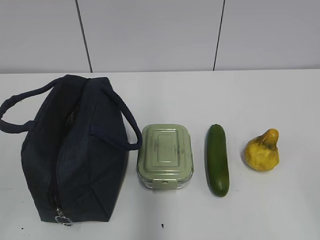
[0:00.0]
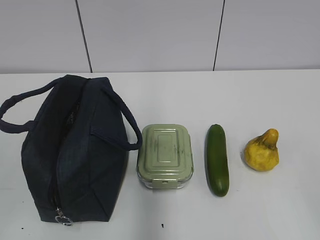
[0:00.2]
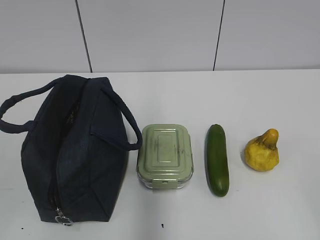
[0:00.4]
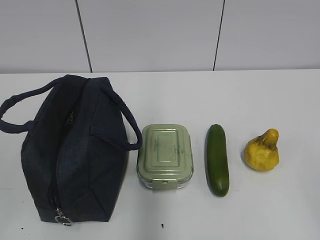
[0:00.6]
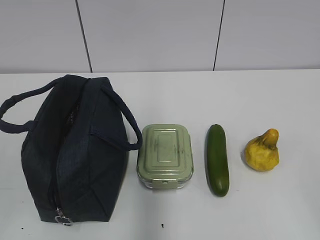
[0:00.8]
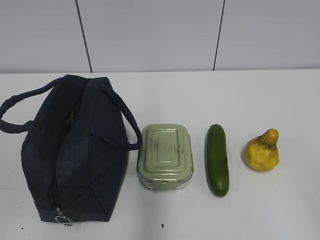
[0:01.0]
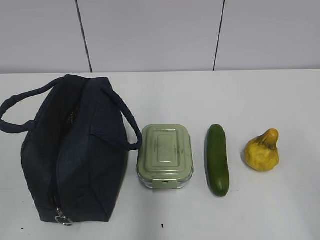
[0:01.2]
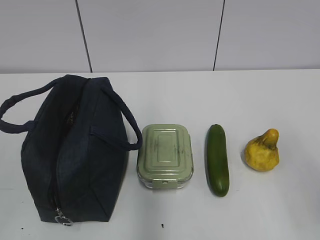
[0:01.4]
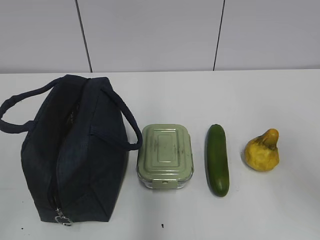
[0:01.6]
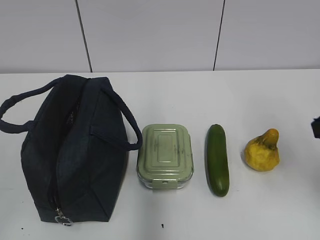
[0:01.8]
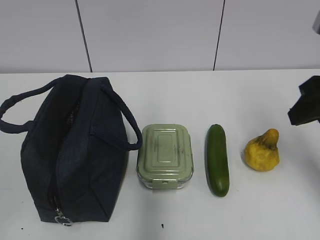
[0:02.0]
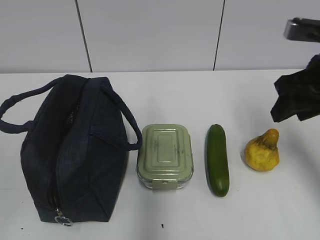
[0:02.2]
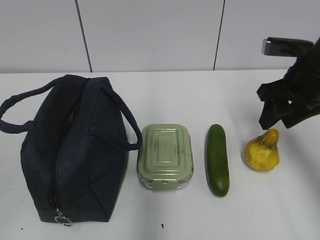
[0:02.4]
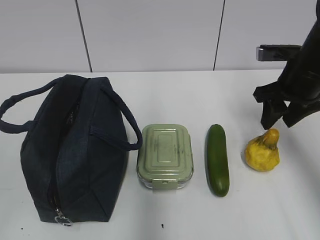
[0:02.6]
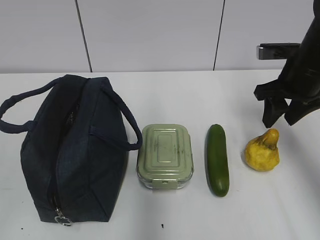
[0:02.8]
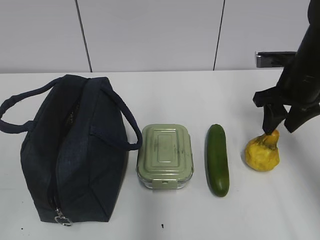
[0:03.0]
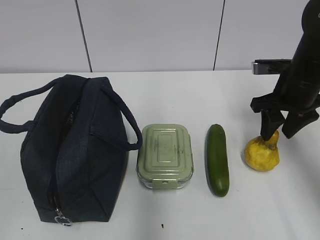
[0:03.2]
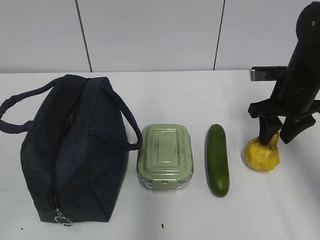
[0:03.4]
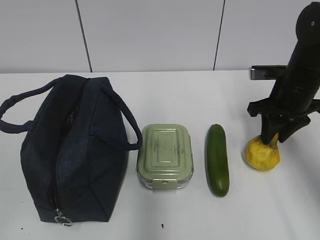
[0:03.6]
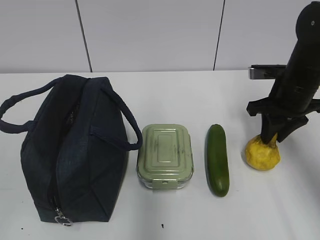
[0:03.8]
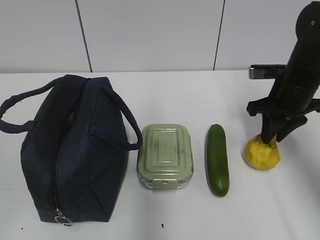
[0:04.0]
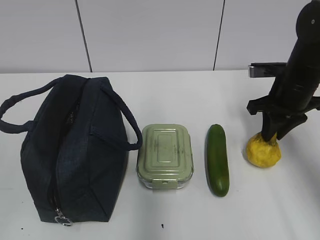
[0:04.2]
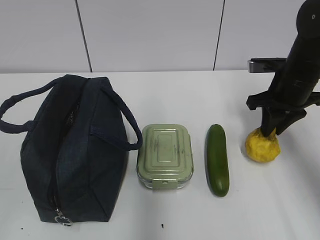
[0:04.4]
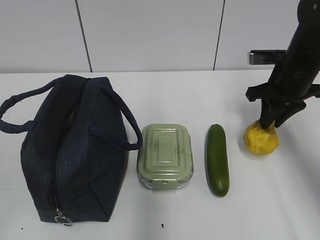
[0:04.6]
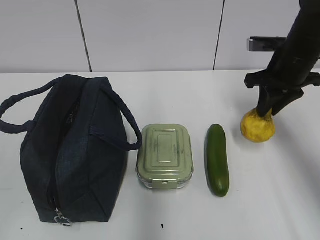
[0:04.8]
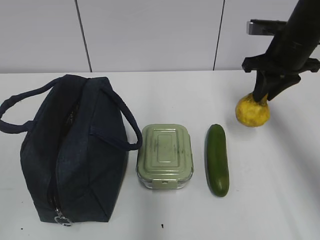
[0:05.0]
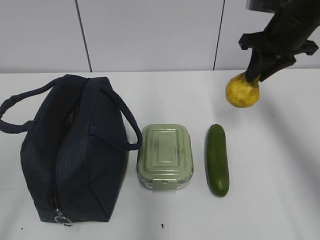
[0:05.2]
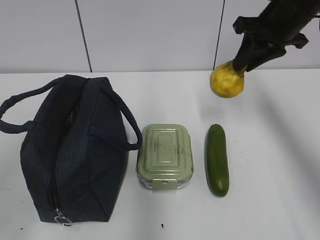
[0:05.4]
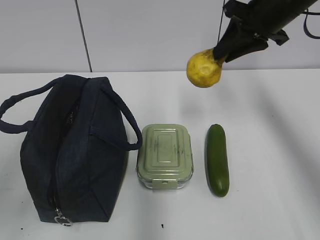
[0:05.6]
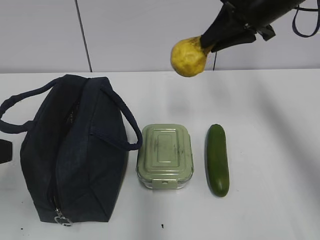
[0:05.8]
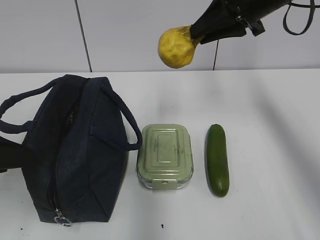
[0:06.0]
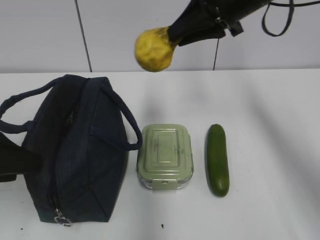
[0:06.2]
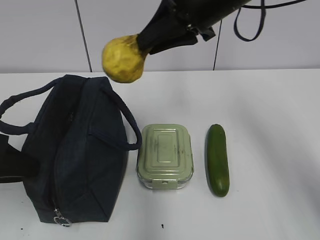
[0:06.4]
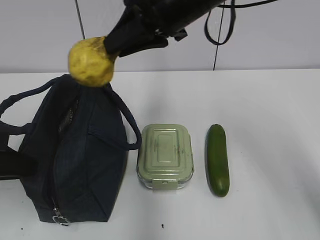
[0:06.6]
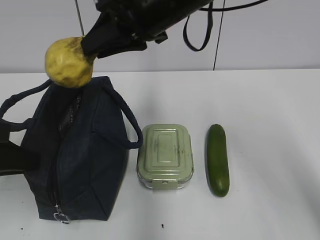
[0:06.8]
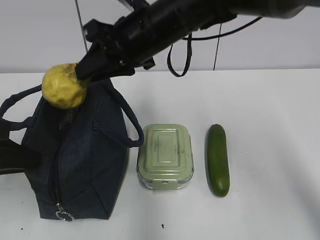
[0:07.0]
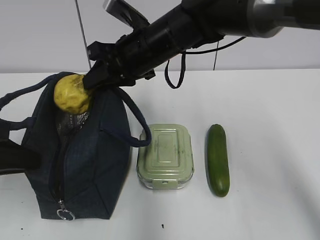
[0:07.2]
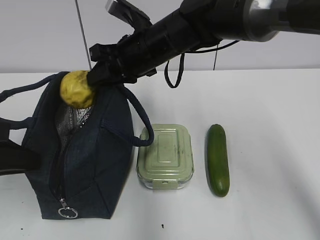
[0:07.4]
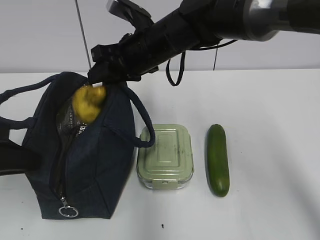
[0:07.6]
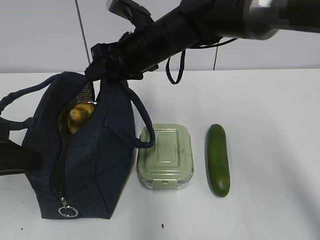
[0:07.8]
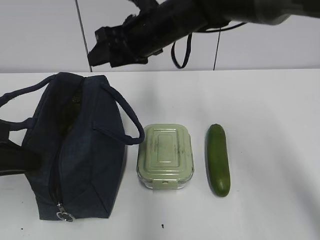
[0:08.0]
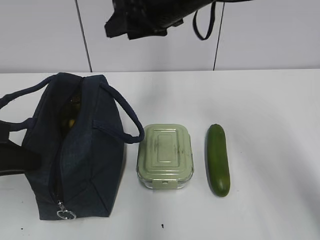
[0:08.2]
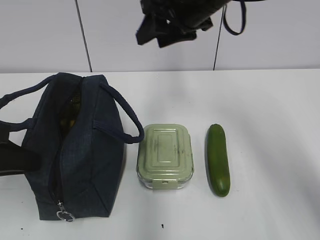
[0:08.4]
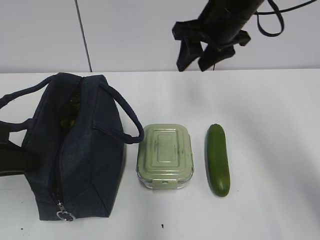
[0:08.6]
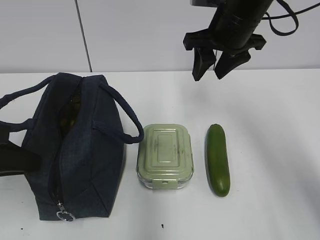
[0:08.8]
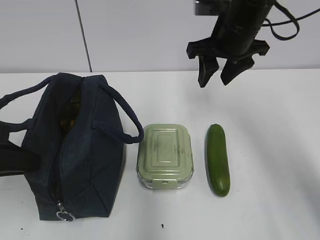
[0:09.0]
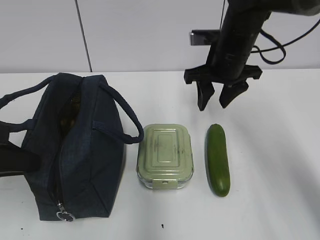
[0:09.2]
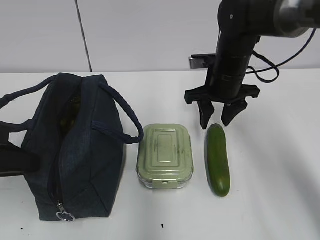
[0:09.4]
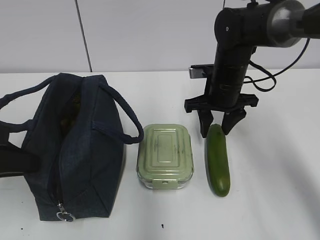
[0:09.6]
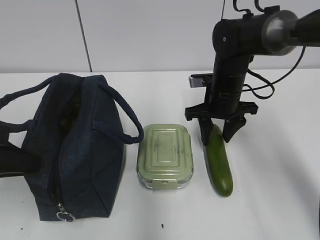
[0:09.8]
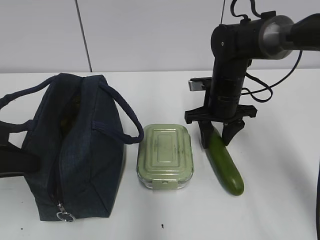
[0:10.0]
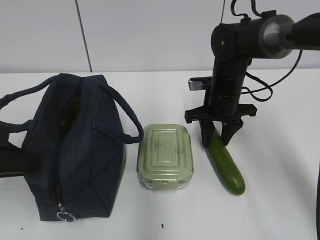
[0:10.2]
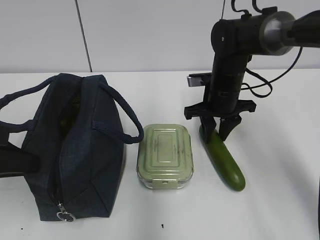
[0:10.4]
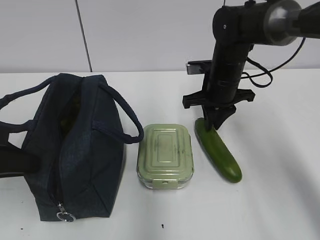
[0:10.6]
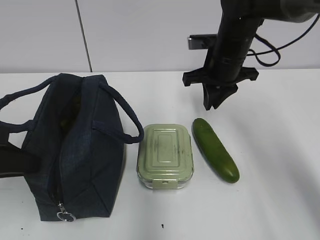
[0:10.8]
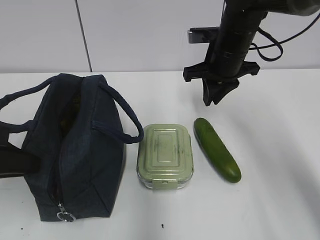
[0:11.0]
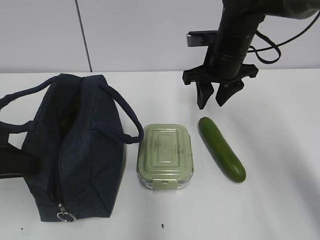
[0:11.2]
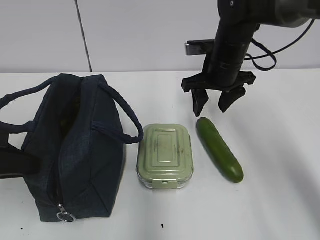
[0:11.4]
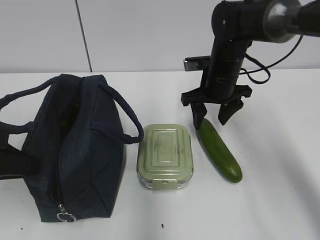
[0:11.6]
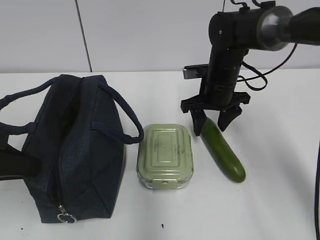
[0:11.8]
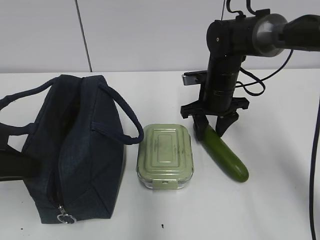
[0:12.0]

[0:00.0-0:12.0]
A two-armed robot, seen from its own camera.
Step, 0:00.0 to 0:04.2: Grab the pear with your right hand.
Step, 0:04.4 to 0:06.4: Grab the lunch bag with your left hand.
Step, 0:06.6 to 0:07.8: Place it into the bag with your right hand.
0:01.6 to 0:03.0: The right gripper heads forward, covering roughly 25 cm.
0:03.0 to 0:04.4: The right gripper closes.
0:04.4 to 0:06.0: The left gripper travels forward by approximately 15 cm; the right gripper shifts roughly 15 cm upward and to the left.
0:06.0 to 0:07.6: The left gripper closes up, while the right gripper moves to the left and downward, some 20 cm.
0:07.6 to 0:09.0: The right gripper goes approximately 15 cm to the right.
0:09.0 to 0:10.4: The right gripper shifts roughly 10 cm downward.
0:10.4 to 0:12.0: The right gripper goes upward and returns, roughly 10 cm each way.

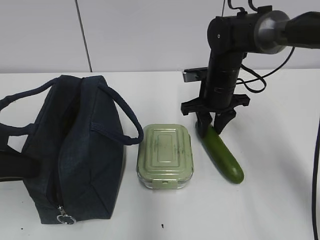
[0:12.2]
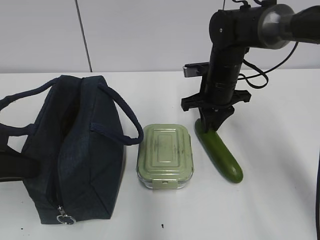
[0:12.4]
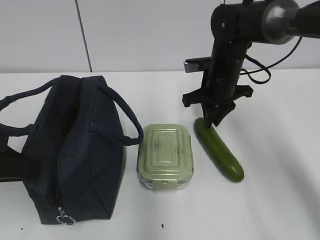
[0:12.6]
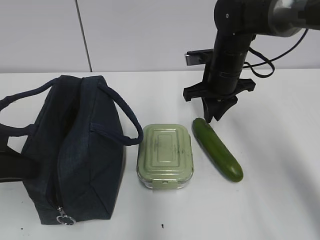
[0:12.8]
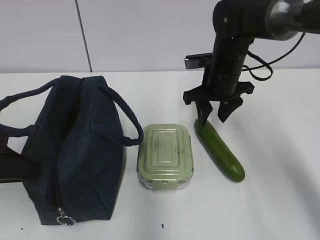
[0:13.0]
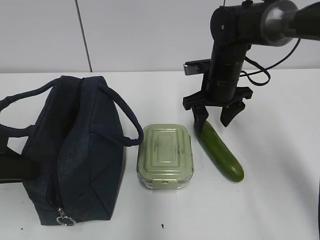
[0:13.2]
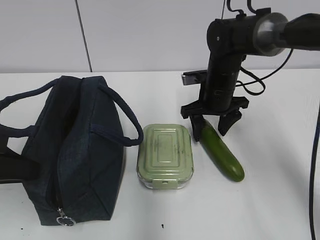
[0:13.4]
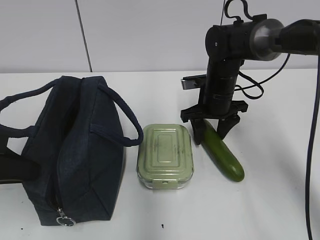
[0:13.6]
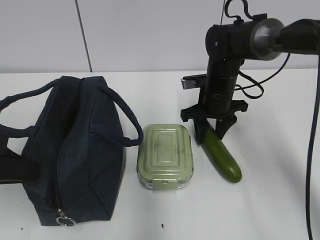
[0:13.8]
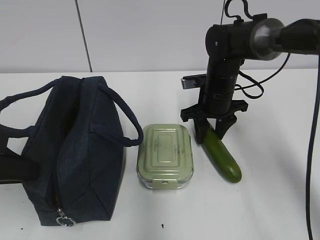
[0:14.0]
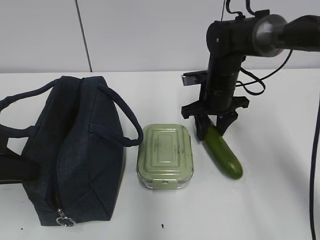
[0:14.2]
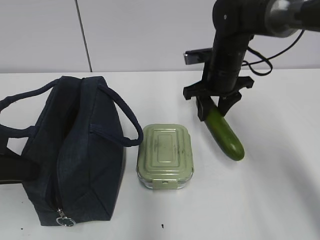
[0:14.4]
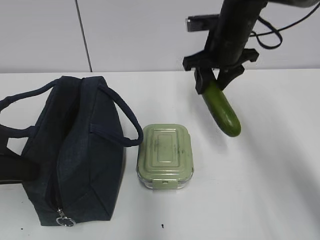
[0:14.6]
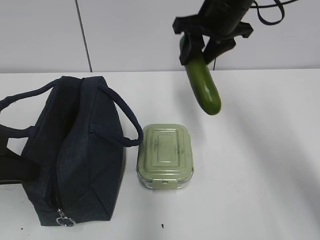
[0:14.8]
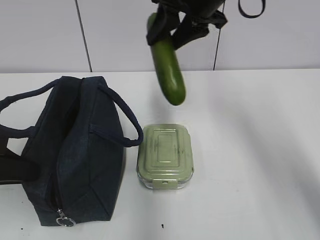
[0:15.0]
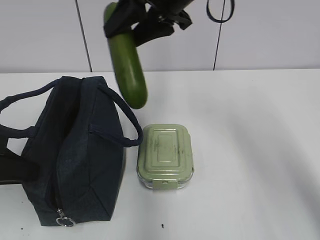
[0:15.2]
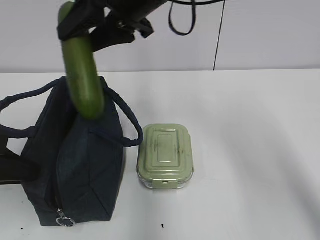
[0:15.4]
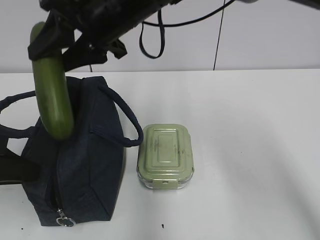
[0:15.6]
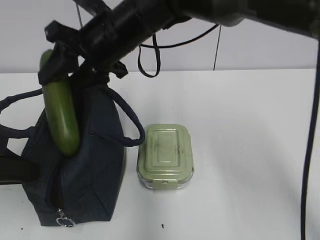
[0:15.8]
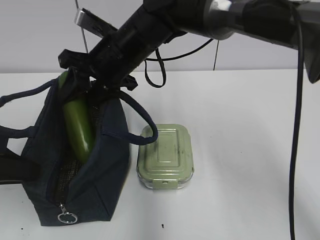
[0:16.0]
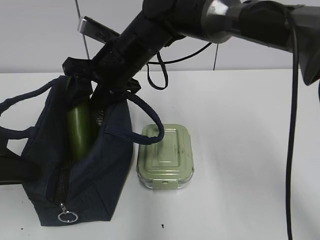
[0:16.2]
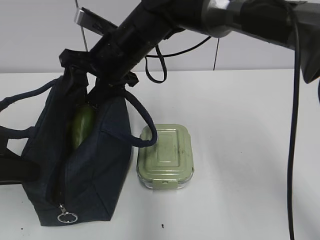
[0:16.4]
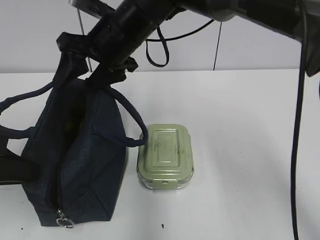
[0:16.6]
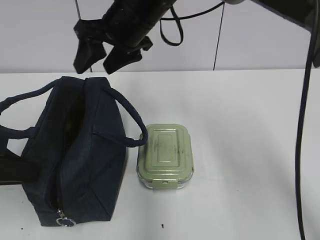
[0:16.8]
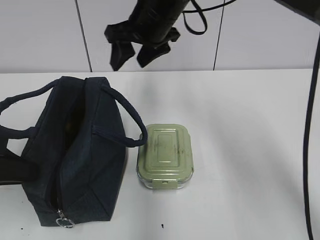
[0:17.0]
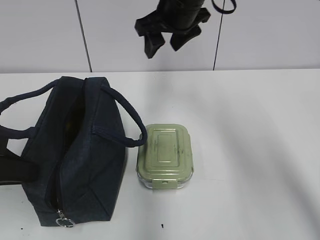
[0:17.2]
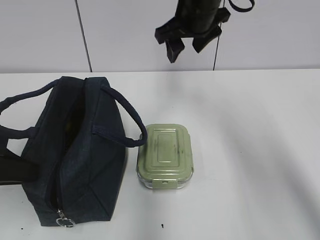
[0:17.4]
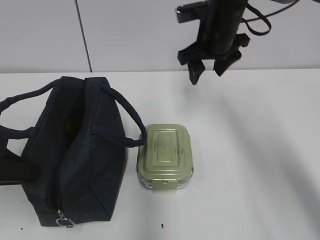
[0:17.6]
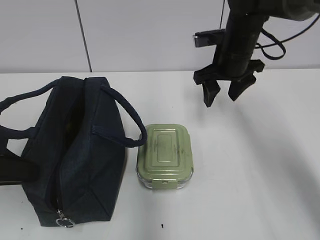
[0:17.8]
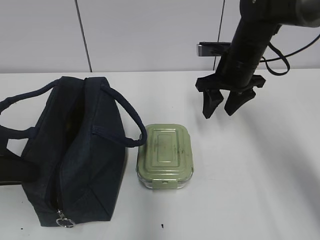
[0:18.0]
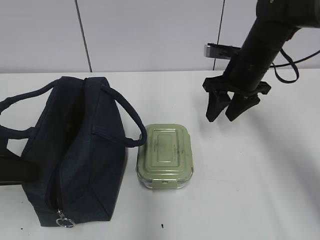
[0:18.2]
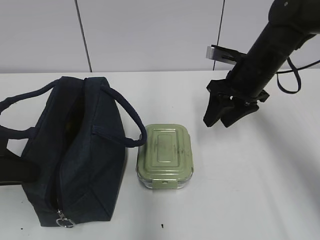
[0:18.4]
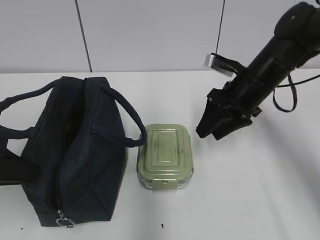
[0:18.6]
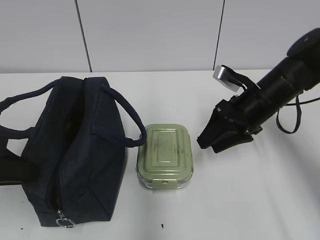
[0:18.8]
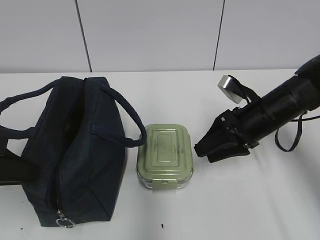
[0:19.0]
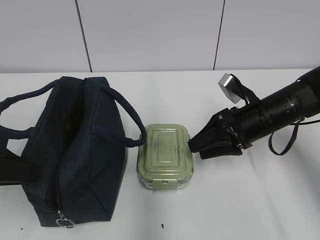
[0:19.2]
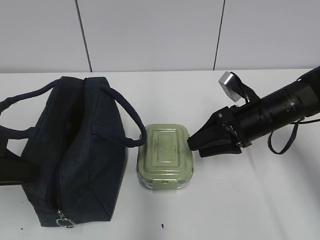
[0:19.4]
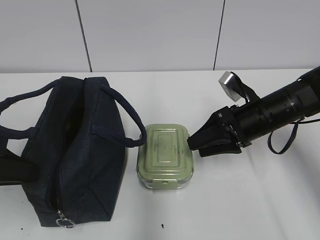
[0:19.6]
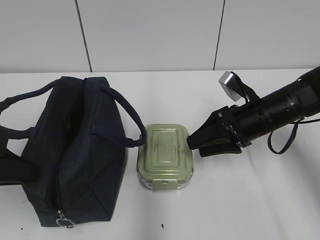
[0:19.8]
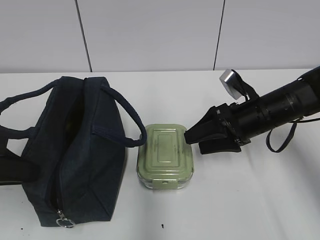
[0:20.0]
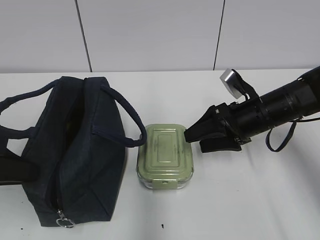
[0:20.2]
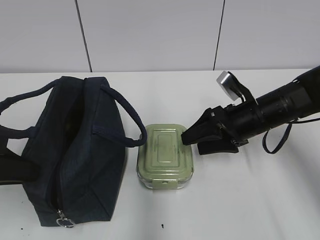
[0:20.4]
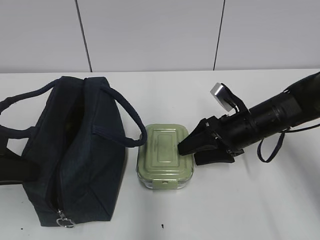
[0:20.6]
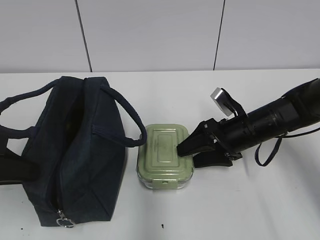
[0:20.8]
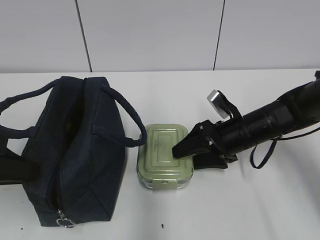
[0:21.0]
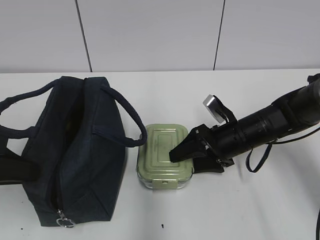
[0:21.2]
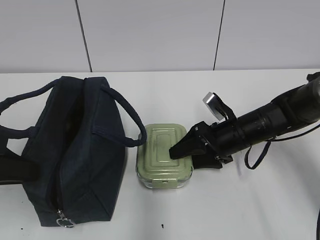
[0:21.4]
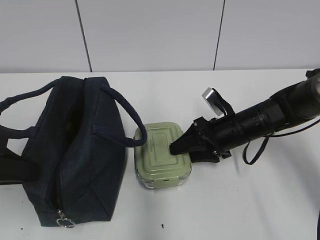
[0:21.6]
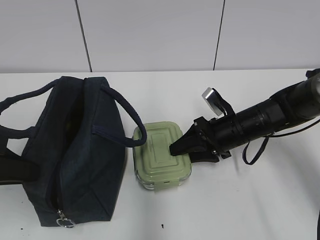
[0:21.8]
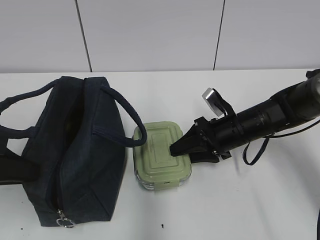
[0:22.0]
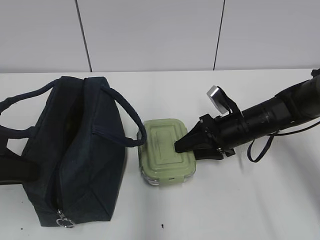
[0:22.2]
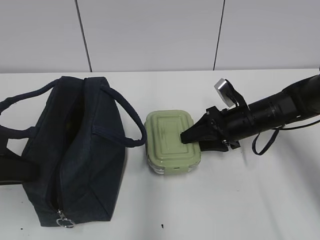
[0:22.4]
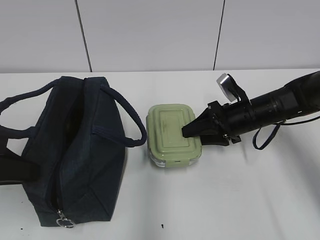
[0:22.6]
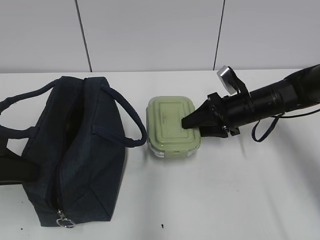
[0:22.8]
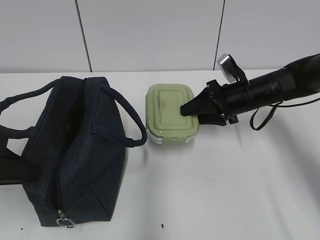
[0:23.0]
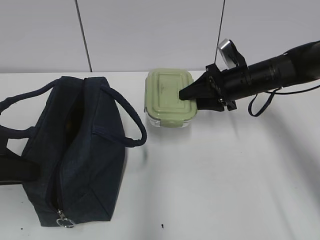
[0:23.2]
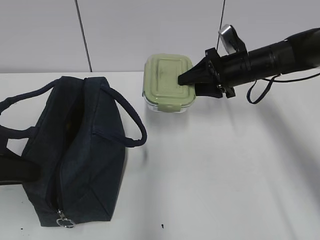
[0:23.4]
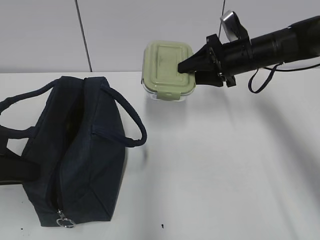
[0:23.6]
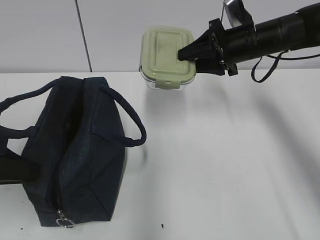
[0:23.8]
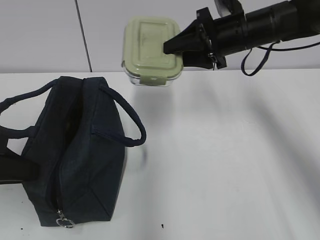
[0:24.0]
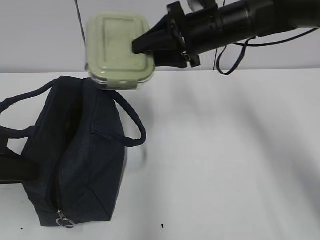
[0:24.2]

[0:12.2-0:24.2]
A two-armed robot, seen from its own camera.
Step, 0:14.2 to 0:16.4: Place it into the bag with your right hand.
Step, 0:16.6 to 0:22.6: Grab the lunch box with your right hand.
0:12.2 to 0:13.8: The grippers move only a little.
0:13.8 to 0:15.2: The right gripper heads upward, covering approximately 20 cm.
0:15.2 to 0:16.6: The right gripper is displaced to the left and downward by approximately 10 cm.
0:16.6 to 0:18.2: The right gripper shifts roughly 20 cm to the right.
0:18.2 to 0:19.8: The right gripper travels backward and downward by about 10 cm.
0:19.8 to 0:21.2: The right gripper heads downward, covering roughly 5 cm.
0:21.2 to 0:22.6: The right gripper ends up about 5 cm from where it was, and closes.
0:22.6 to 0:24.2: The right gripper shifts some 20 cm upward and to the left.
